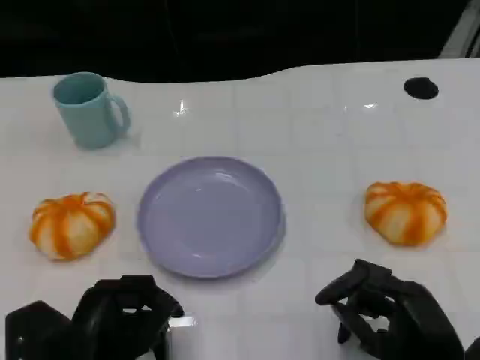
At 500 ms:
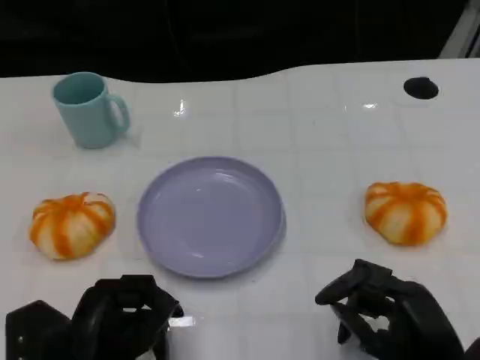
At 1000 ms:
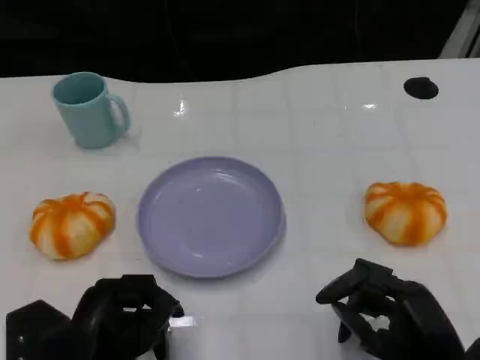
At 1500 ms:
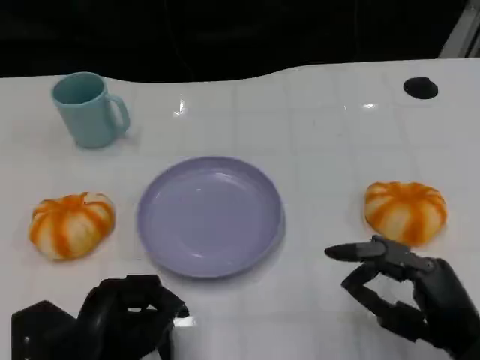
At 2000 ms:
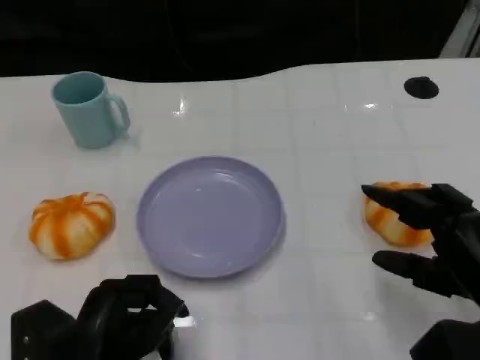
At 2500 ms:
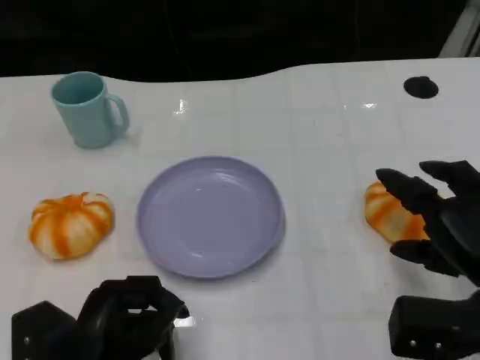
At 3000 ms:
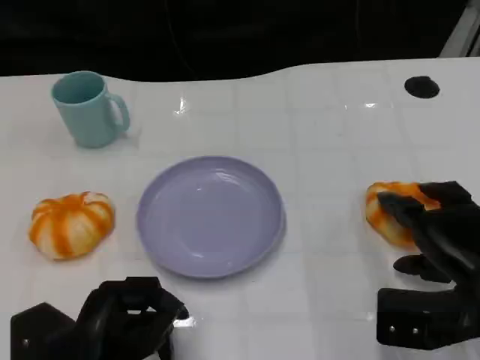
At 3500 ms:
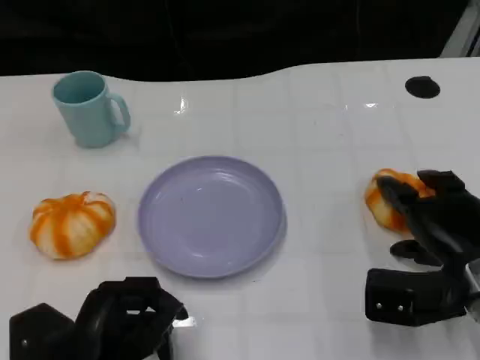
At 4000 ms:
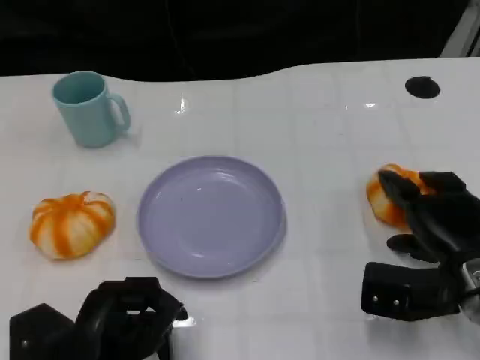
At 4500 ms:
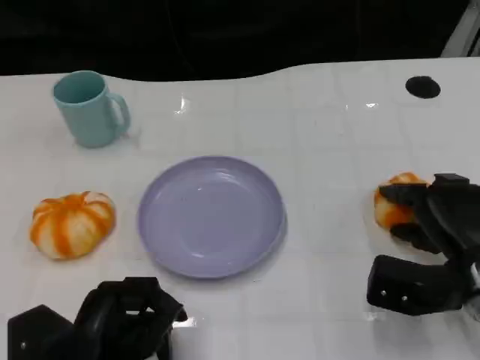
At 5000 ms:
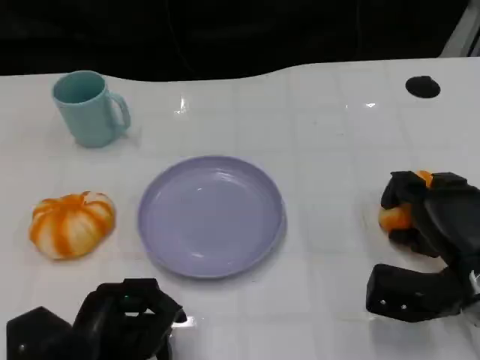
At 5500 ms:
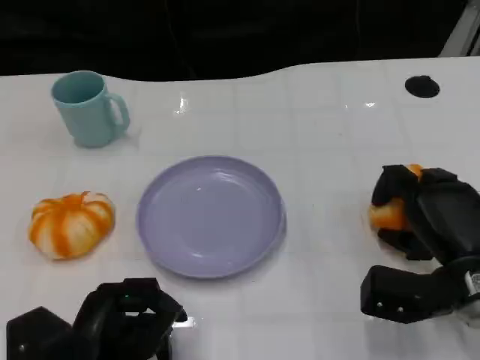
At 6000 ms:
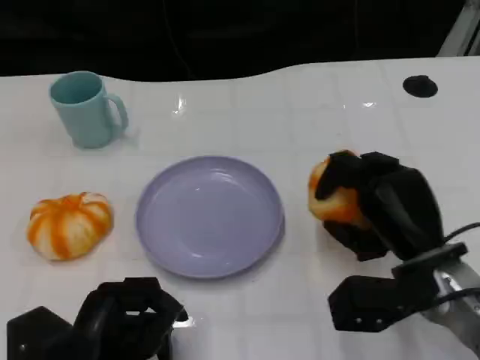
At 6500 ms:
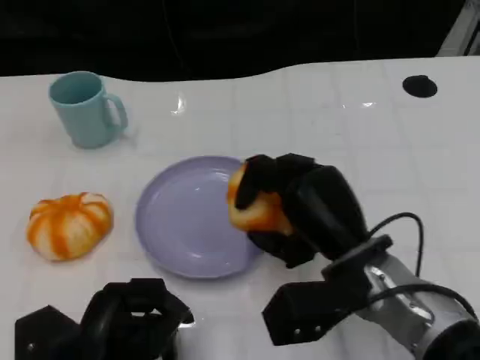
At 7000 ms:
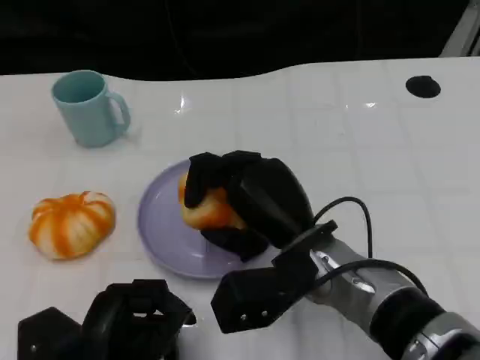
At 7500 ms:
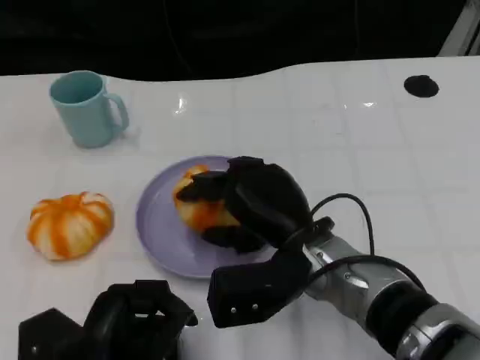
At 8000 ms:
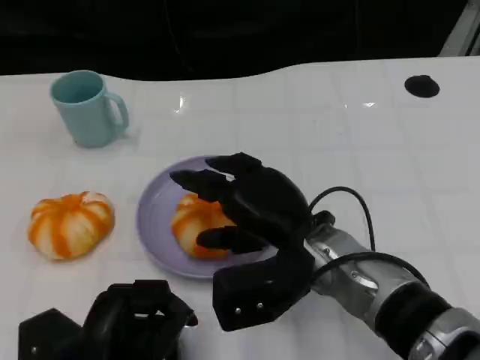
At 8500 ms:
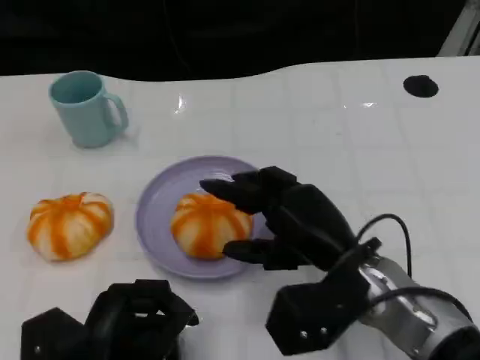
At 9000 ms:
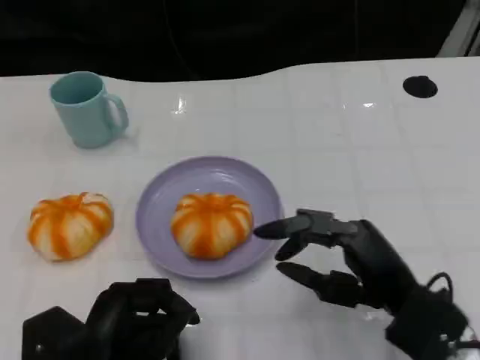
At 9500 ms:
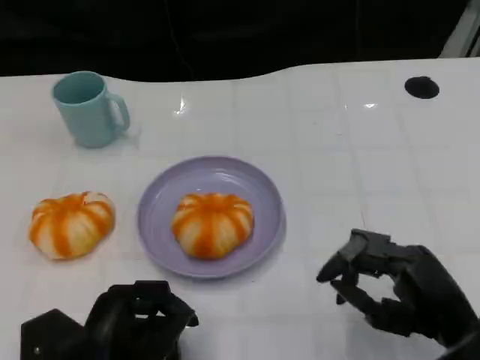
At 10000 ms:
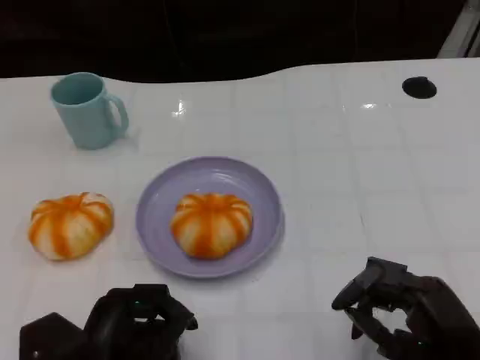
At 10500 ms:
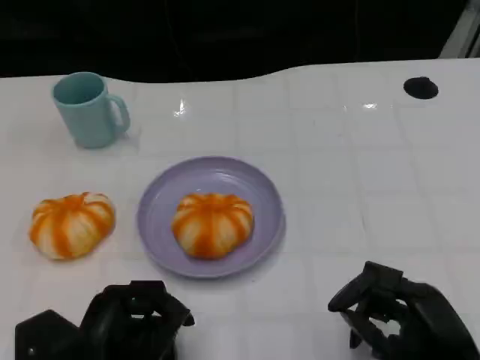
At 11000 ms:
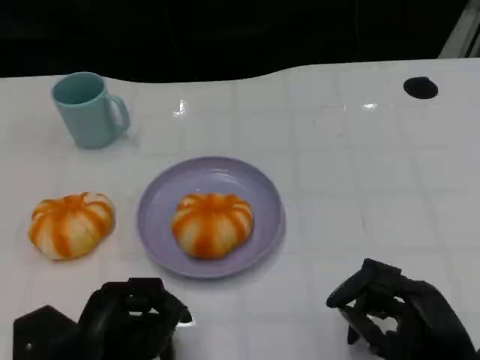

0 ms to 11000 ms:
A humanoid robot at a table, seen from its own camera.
Task of the whole recording: Grasp the bread from the table and place it into the plate.
0 ms to 2000 ms: The right hand shifts about 5 cm upward.
2000 ms to 3500 ms: The right hand heads forward, covering roughly 5 cm.
5500 ms to 7500 ms: The right hand moves to the left, roughly 15 cm.
7500 ms to 9000 ms: The right hand is displaced to the right and backward by about 15 cm.
9000 ms to 11000 ms: The right hand shifts about 5 cm backward.

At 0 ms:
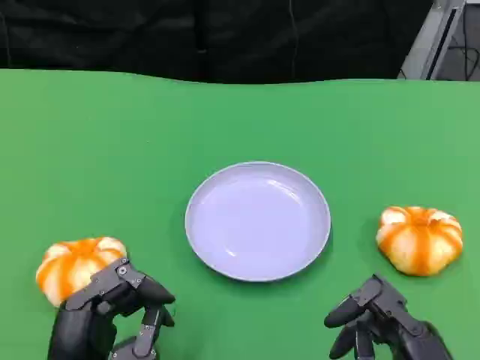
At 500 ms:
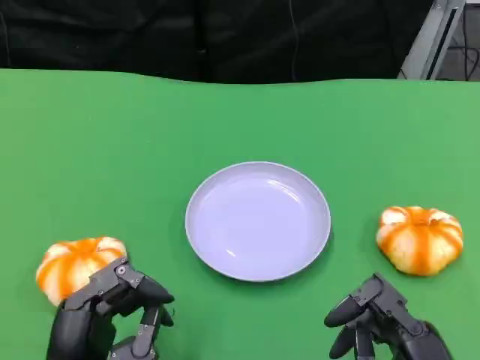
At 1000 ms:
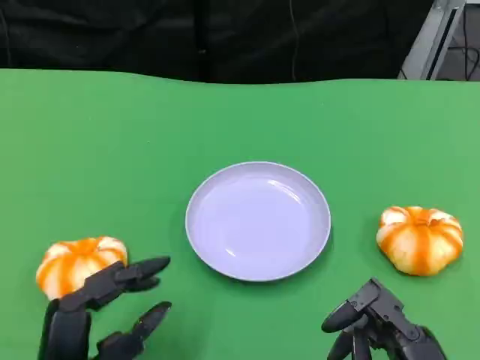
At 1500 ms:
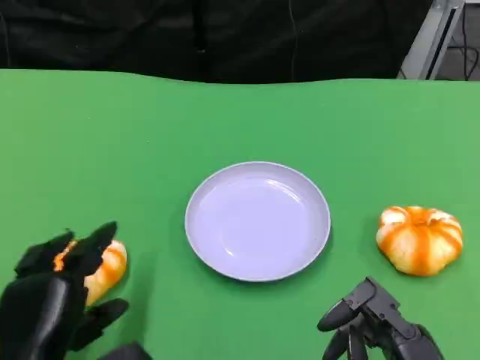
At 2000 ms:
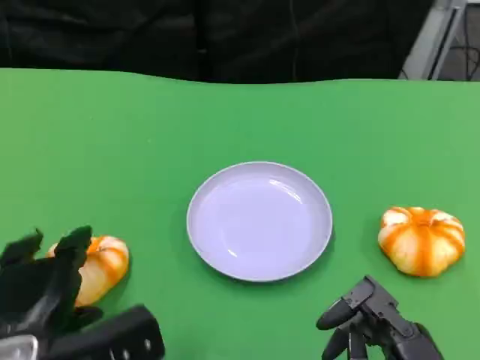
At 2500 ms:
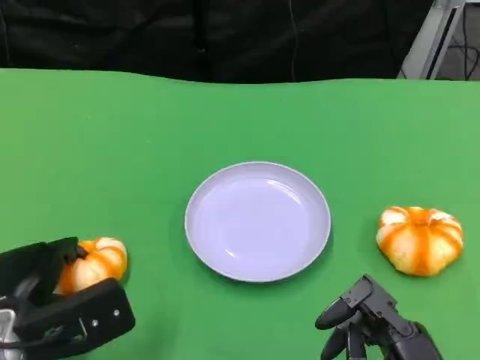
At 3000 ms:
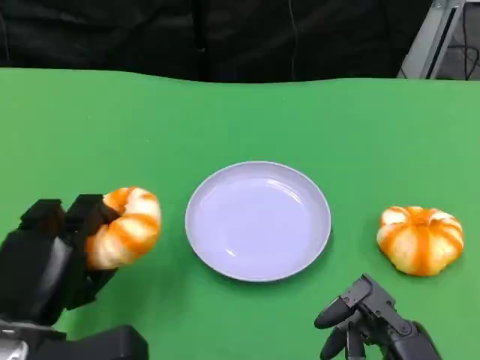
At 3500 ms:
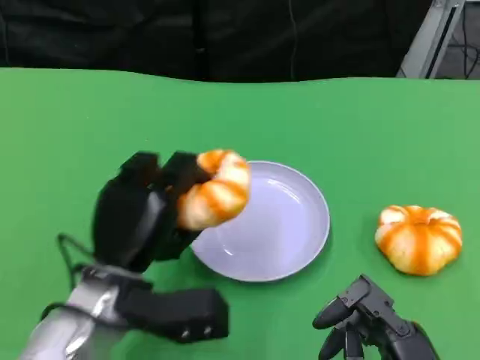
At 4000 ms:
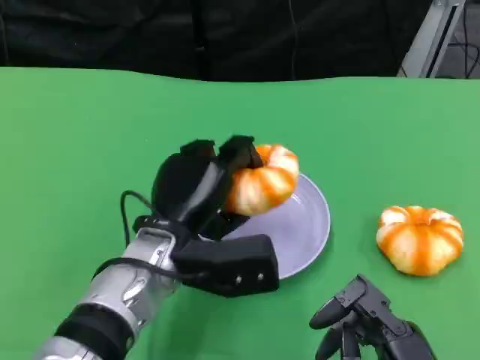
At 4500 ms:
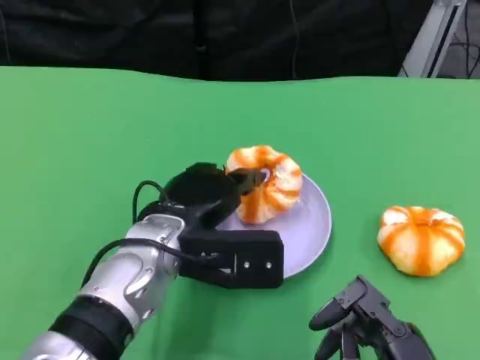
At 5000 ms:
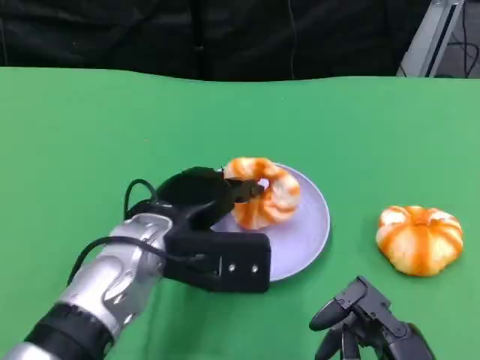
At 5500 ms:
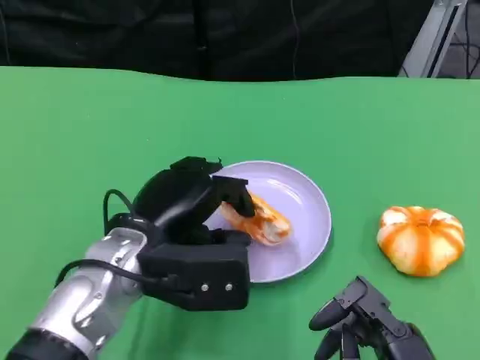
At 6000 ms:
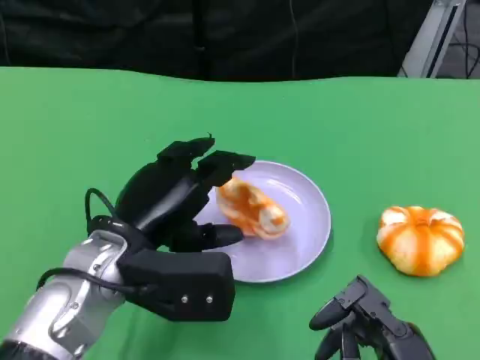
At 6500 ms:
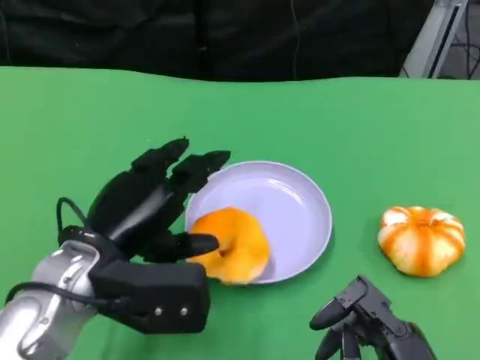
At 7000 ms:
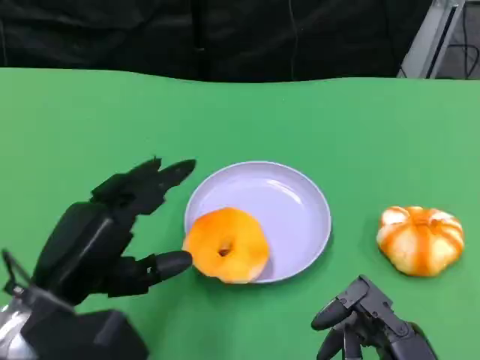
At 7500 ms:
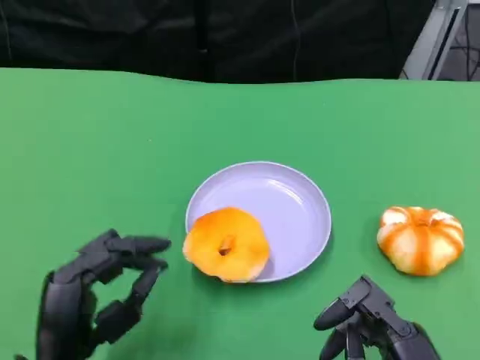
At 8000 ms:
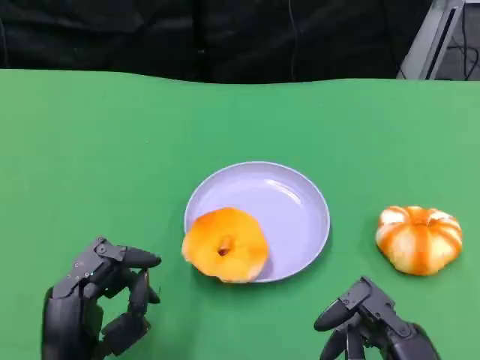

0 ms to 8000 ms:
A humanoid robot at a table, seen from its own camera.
Task of the whole recording: Grasp the bread from the table and place it into the plate.
0 ms to 2000 ms: The left hand heads forward, covering roughly 5 cm.
2000 ms to 4000 ms: The left hand travels to the right and forward by roughly 15 cm.
4000 ms to 6000 ms: The left hand travels to the left by approximately 5 cm.
6000 ms to 8000 ms: The left hand heads backward and downward, covering some 15 cm.

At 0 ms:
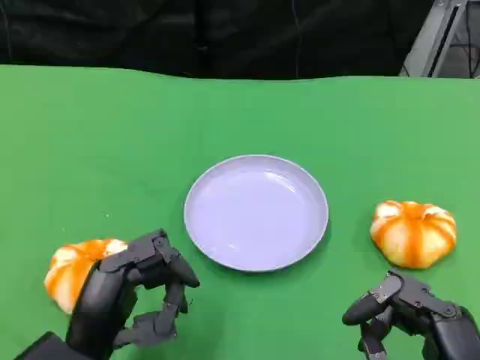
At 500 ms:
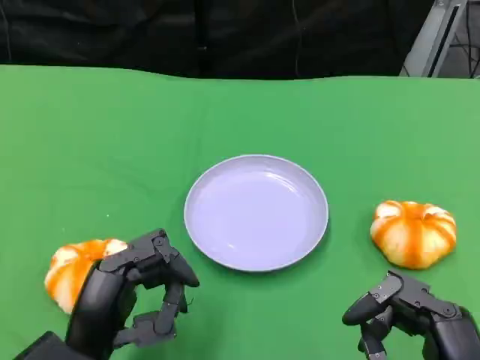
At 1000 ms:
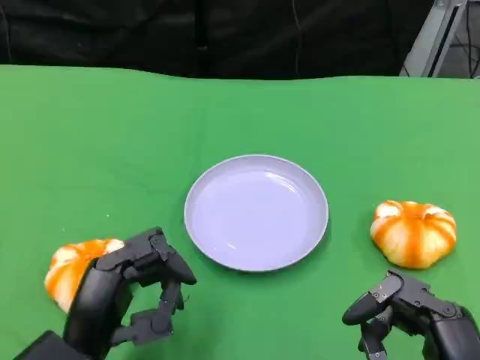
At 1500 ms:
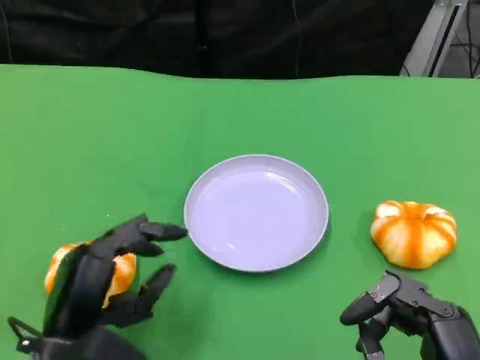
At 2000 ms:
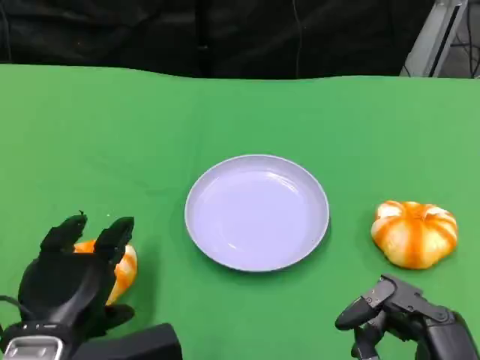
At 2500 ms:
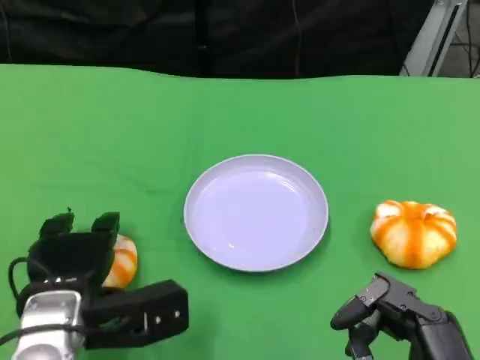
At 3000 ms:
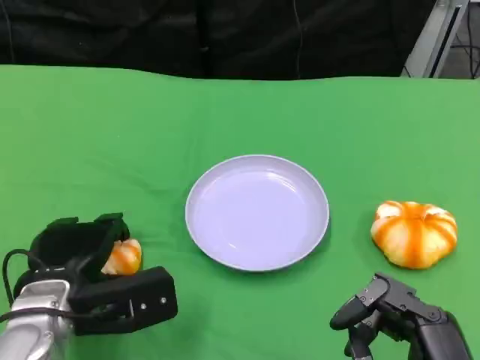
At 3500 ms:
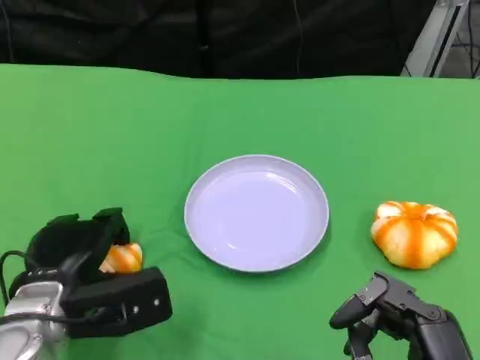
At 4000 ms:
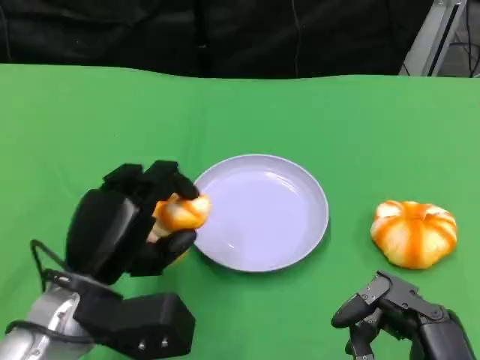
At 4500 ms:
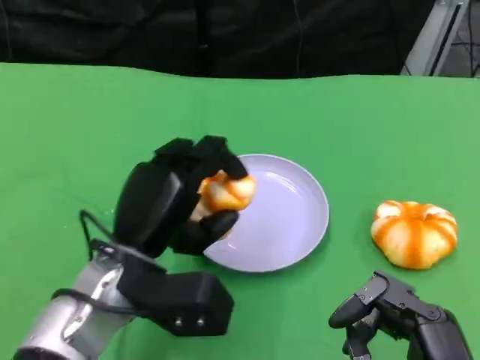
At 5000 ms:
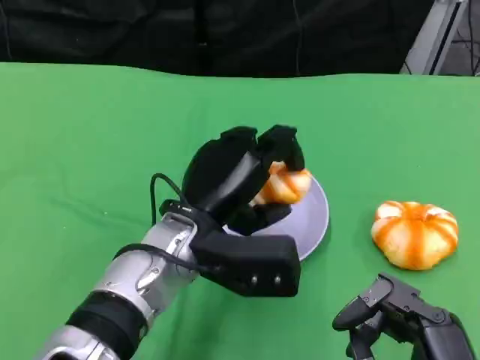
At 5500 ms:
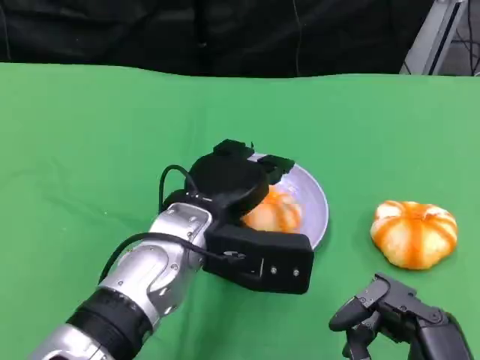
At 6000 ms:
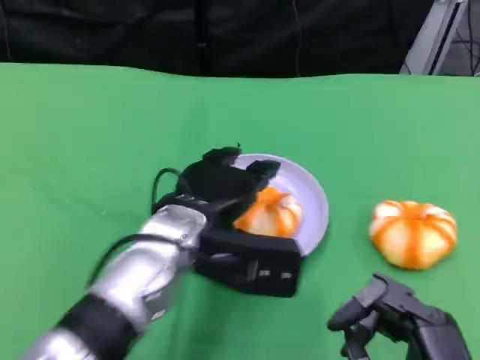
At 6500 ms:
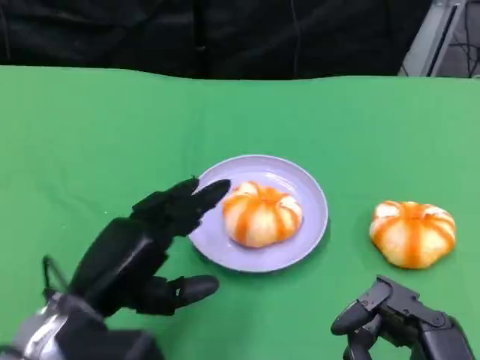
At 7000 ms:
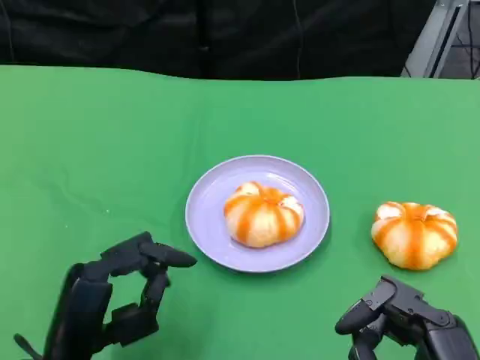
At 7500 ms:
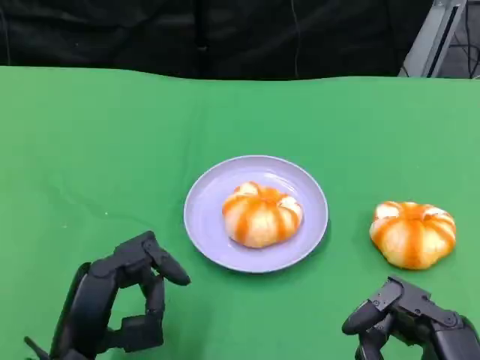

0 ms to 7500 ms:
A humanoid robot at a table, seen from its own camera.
Task of the whole recording: Grasp the bread from the table and place it into the plate.
2000 ms to 4000 ms: The left hand changes place by approximately 5 cm.
4000 ms to 5500 ms: The left hand is displaced to the right by roughly 10 cm.
5500 ms to 7500 ms: The left hand is displaced backward, to the left and downward by some 15 cm.
